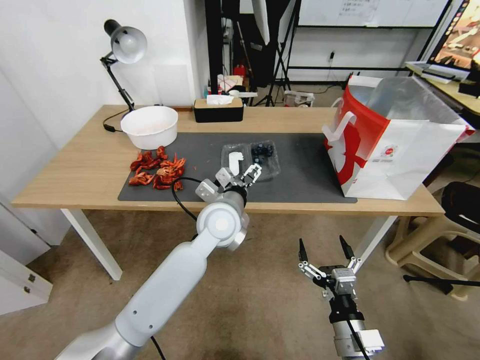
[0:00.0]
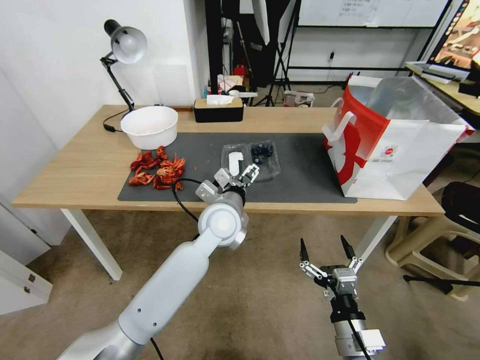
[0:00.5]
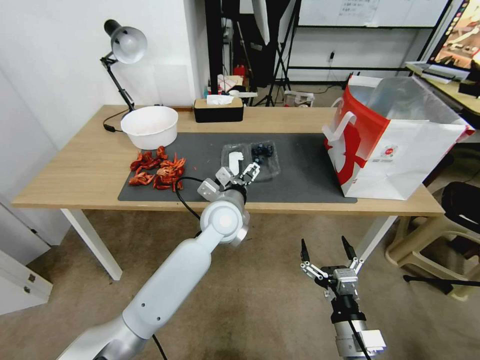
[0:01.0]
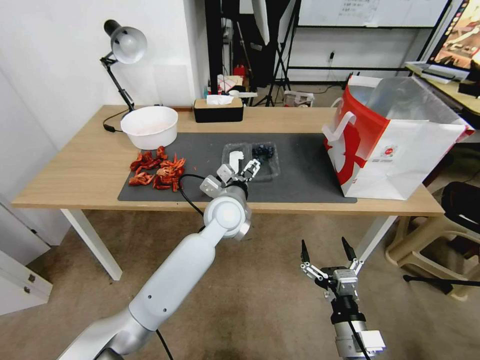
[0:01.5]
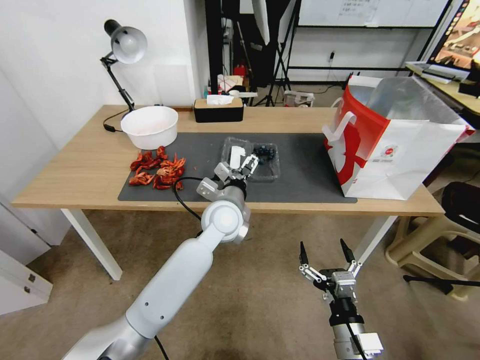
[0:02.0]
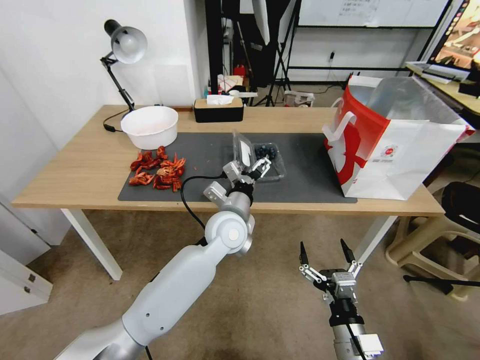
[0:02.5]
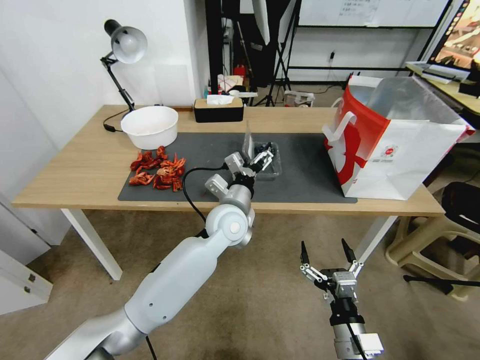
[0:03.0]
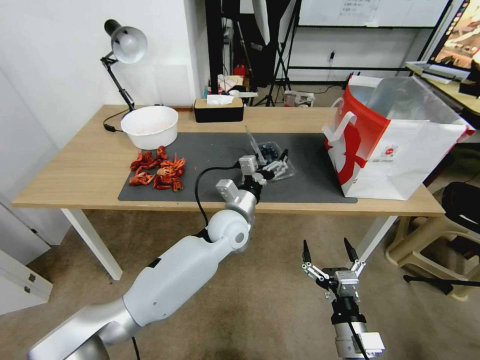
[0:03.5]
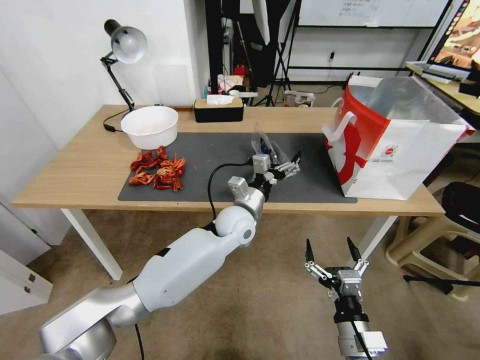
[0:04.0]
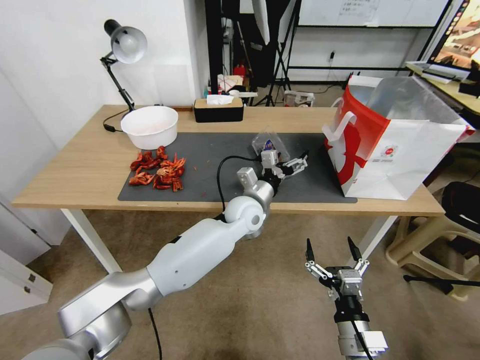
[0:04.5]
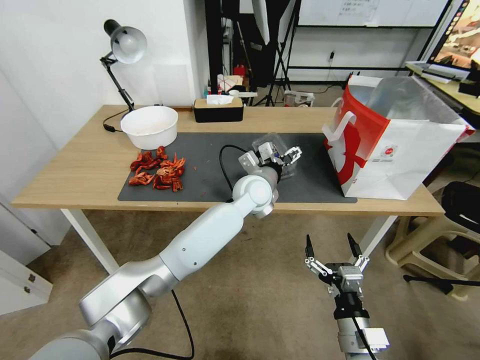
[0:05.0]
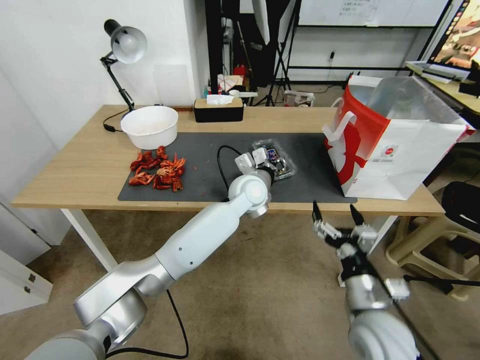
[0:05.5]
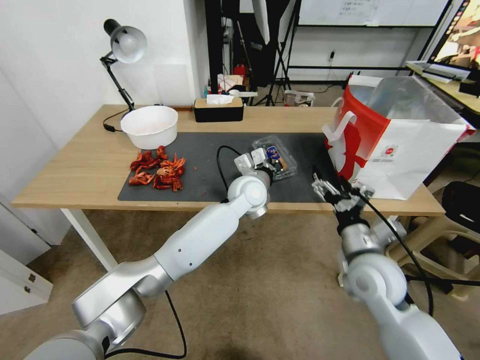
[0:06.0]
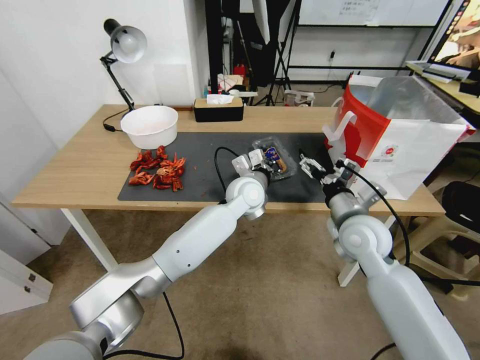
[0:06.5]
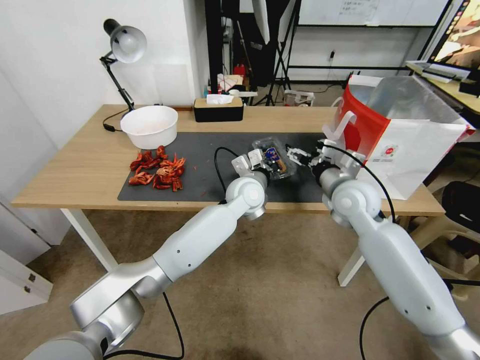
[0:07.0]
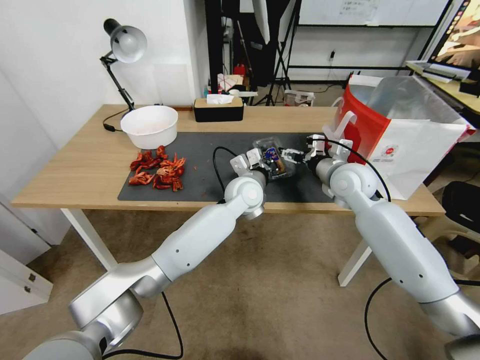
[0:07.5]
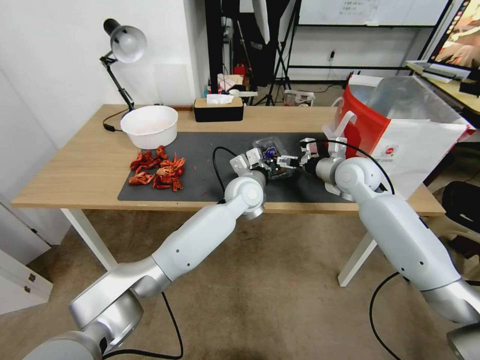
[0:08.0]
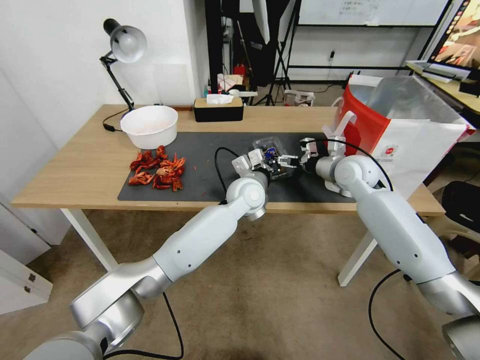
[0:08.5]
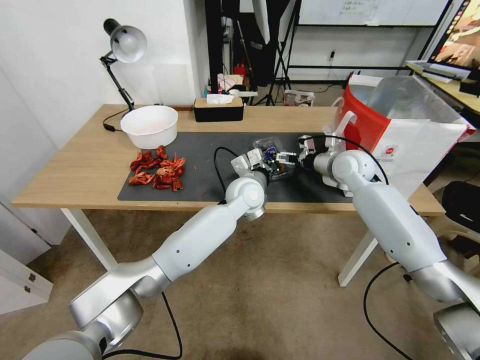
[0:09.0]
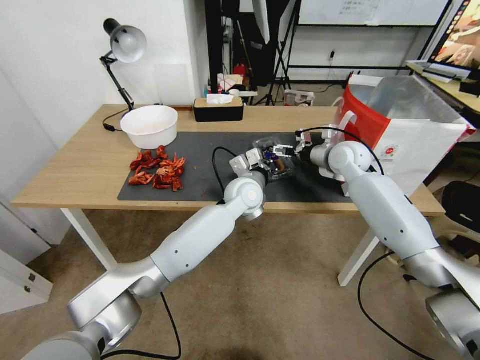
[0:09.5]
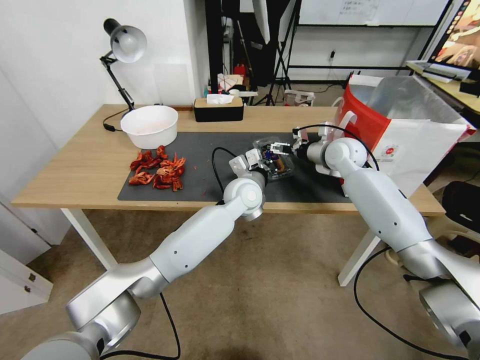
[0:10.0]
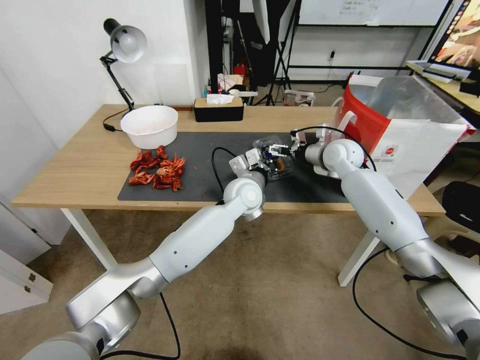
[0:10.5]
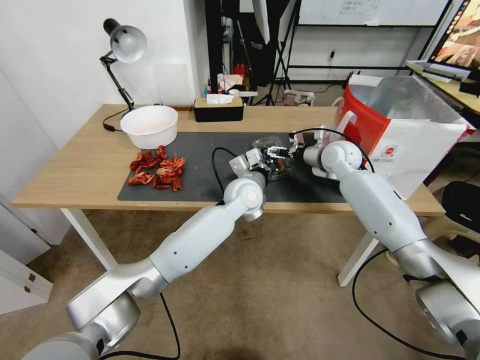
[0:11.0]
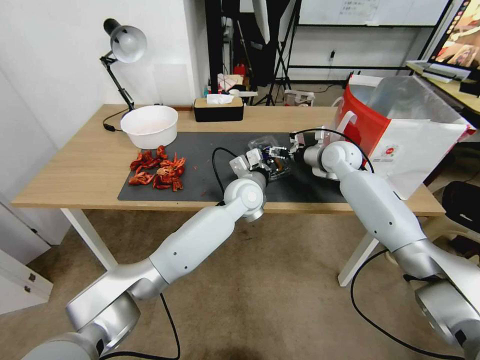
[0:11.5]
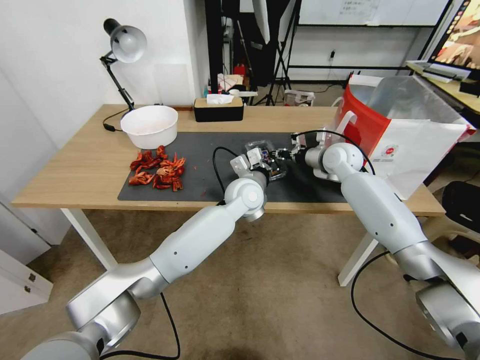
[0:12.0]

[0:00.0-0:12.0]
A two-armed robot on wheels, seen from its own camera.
Task of the whole recording: Close the takeout container lid, then place the container into the takeout bag.
0:00.0 to 0:02.0: The grippers move only a little.
0:02.0 to 0:04.0: The left gripper shifts by approximately 5 cm.
0:04.0 to 0:06.0: The left gripper travels forward and upward by approximately 10 cm, and closes up. Meanwhile the right gripper is displaced forward and upward by some 20 cm.
0:06.0 to 0:08.0: The right gripper travels forward by about 20 cm.
0:08.0 to 0:10.0: The right gripper shifts roughly 5 cm forward.
0:10.0 to 0:12.0: The right gripper closes its fingers.

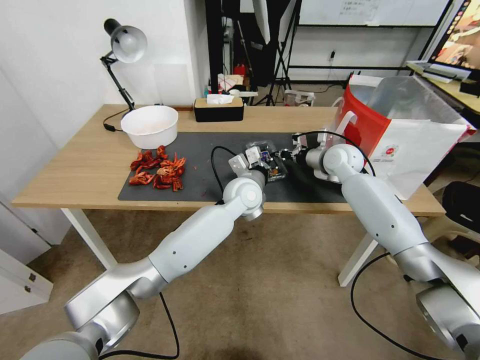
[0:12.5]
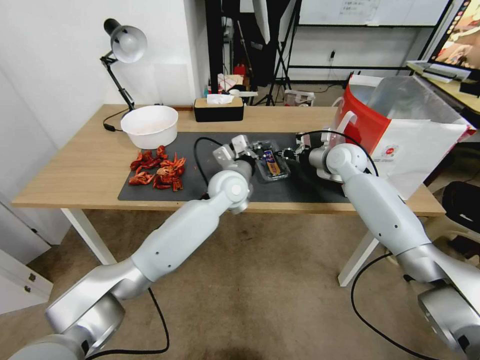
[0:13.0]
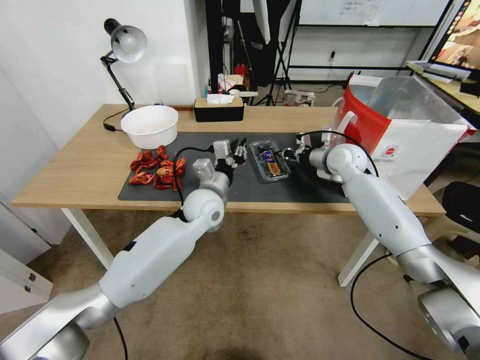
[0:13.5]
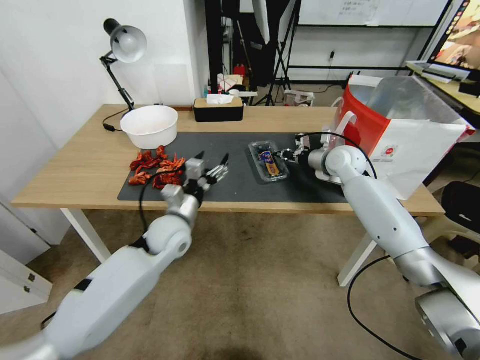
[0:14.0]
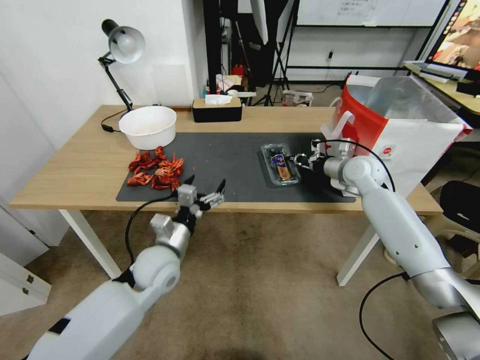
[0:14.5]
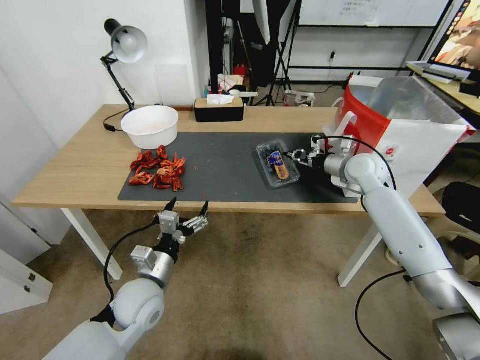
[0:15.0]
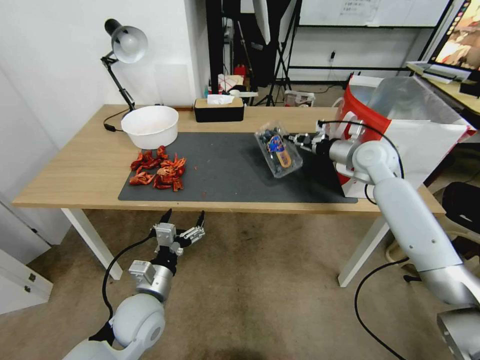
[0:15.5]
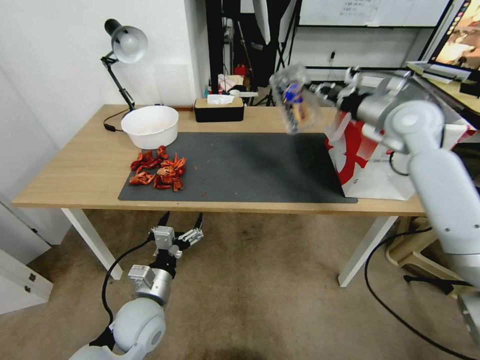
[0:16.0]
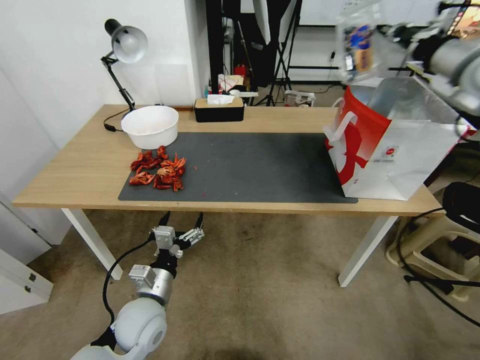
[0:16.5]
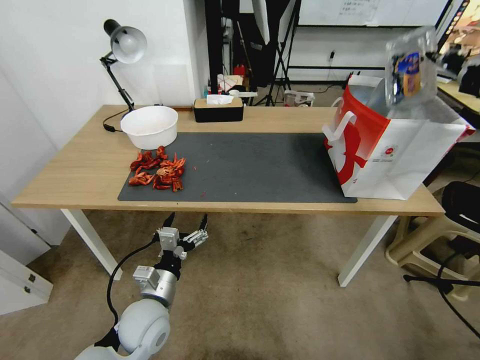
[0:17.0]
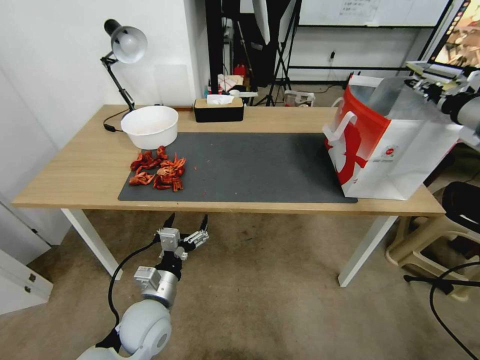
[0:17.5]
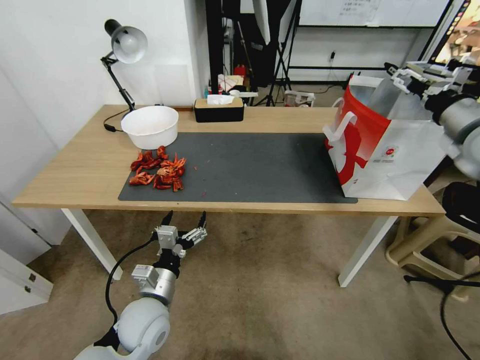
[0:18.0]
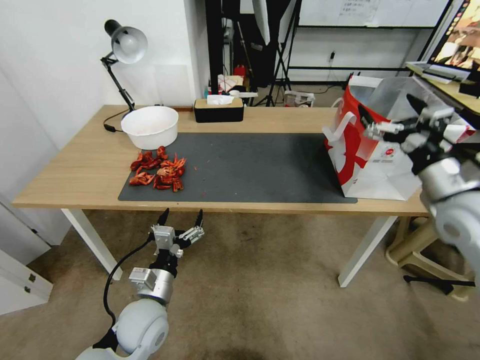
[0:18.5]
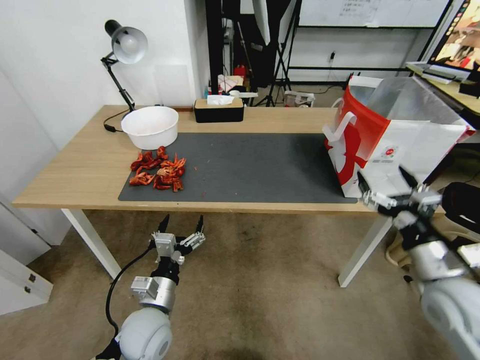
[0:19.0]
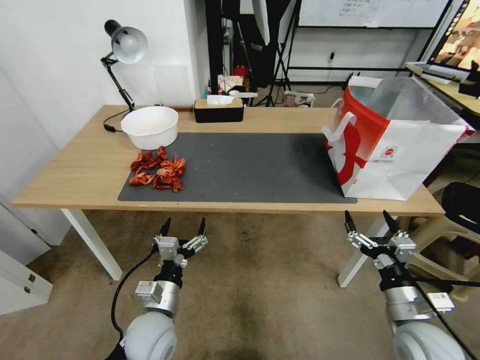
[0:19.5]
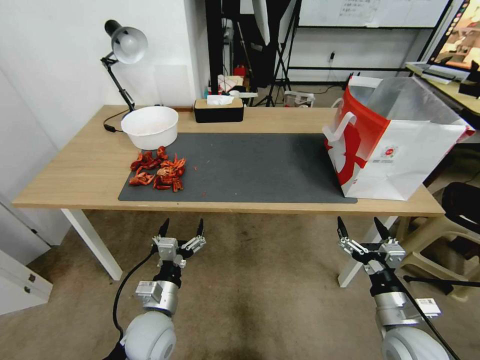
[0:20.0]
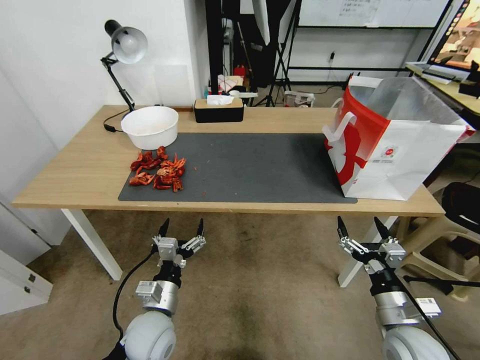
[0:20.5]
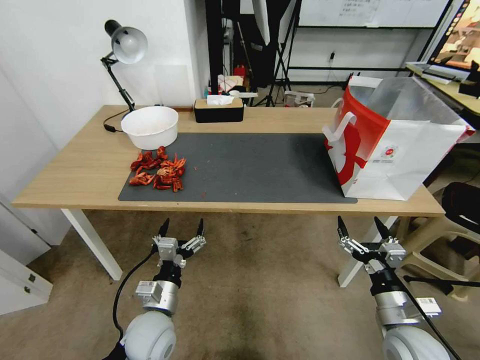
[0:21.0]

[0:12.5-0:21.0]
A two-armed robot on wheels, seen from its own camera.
Task of the whole recording: Close the takeout container lid, then place the container into the takeout bag.
0:12.5 to 0:14.5: The right gripper shifts by about 5 cm; the left gripper heads to the left and backward, covering some 25 cm, and opens up.
0:14.5 to 0:16.5: The right gripper heads upward, covering some 25 cm. The left gripper is displaced backward by some 10 cm.
0:16.5 to 0:19.0: The right gripper shifts some 40 cm downward and backward, and opens its fingers.
0:19.0 to 0:21.0: The right gripper shifts roughly 10 cm downward.
